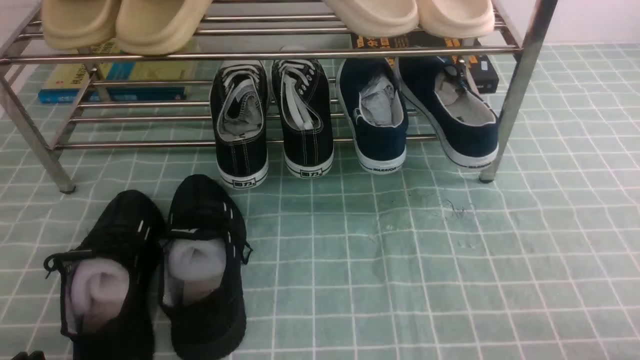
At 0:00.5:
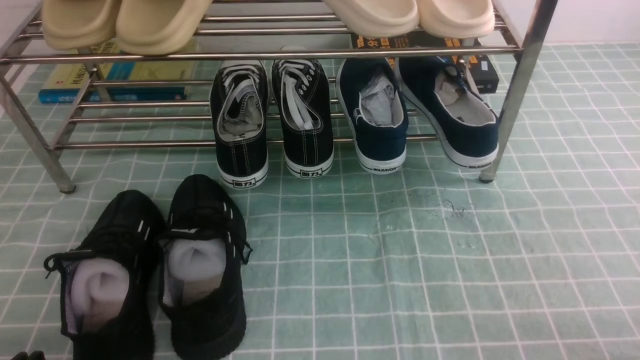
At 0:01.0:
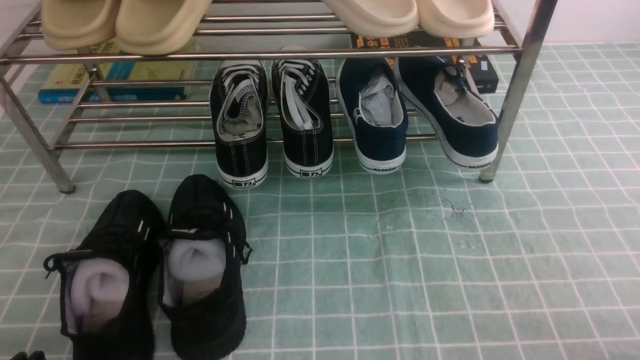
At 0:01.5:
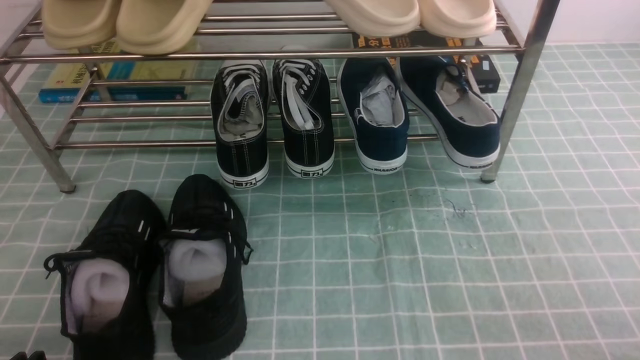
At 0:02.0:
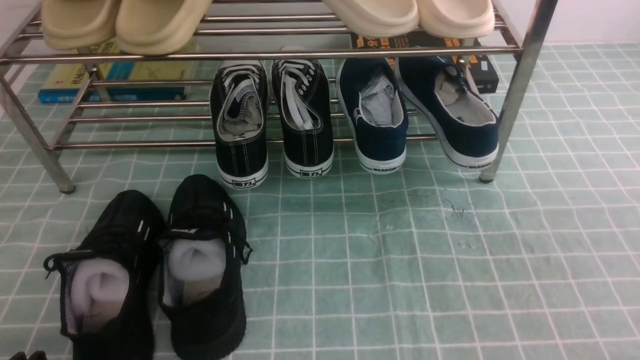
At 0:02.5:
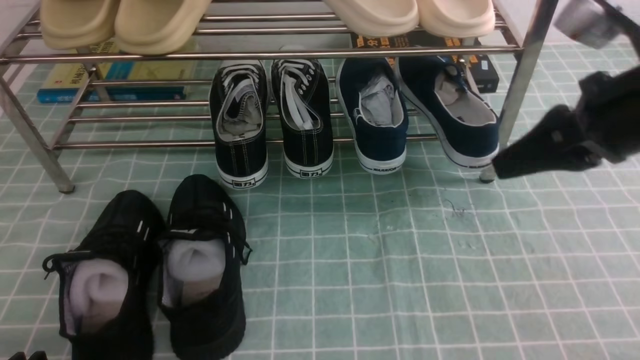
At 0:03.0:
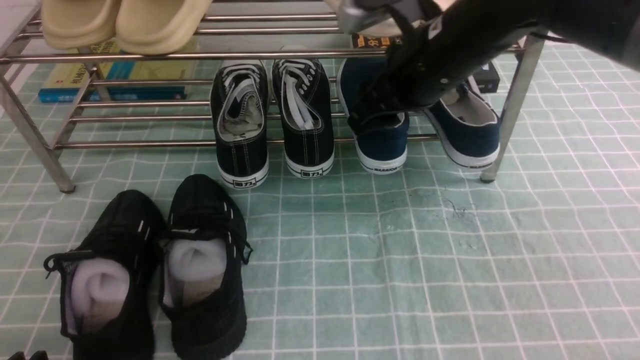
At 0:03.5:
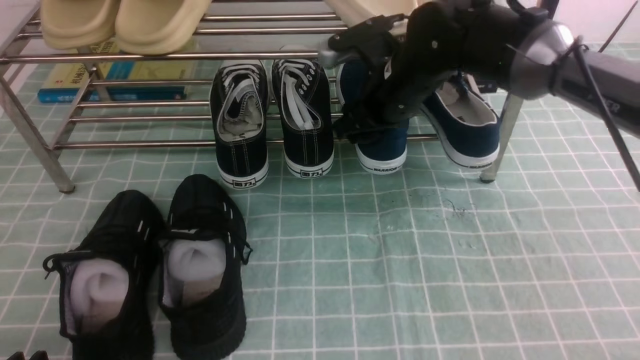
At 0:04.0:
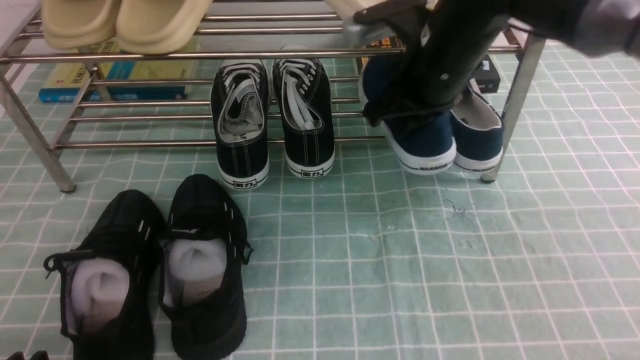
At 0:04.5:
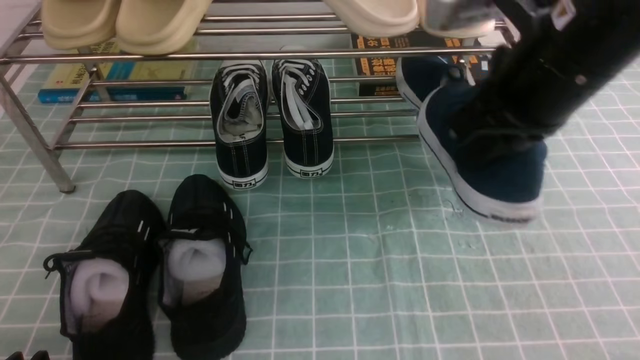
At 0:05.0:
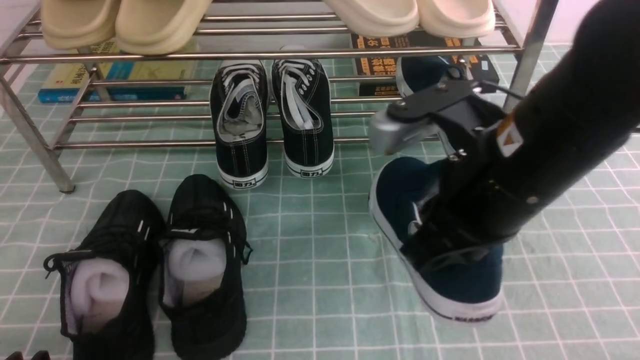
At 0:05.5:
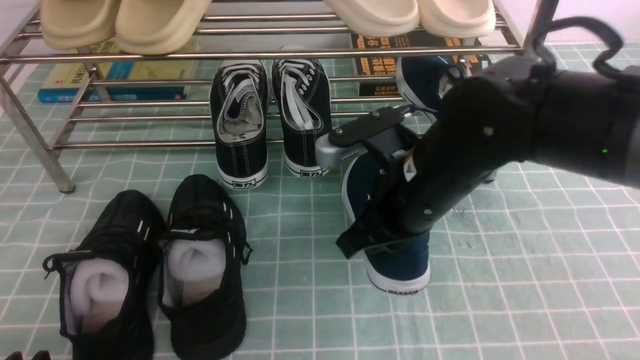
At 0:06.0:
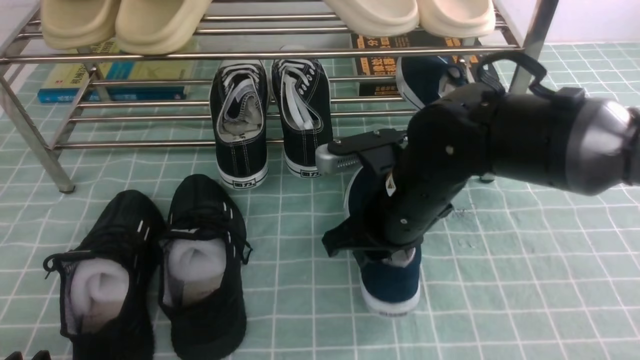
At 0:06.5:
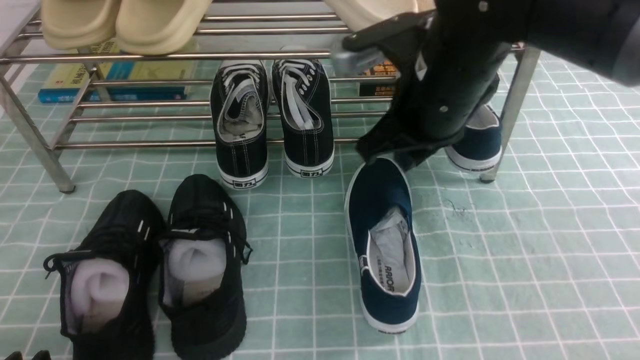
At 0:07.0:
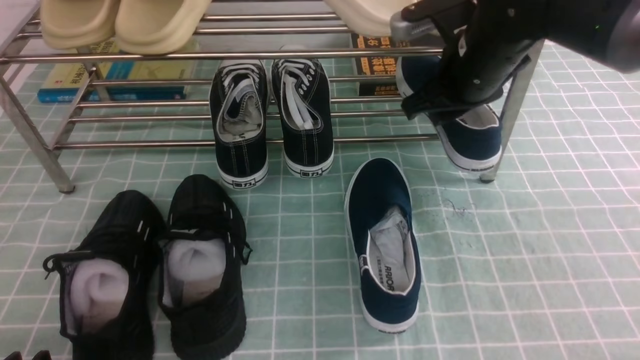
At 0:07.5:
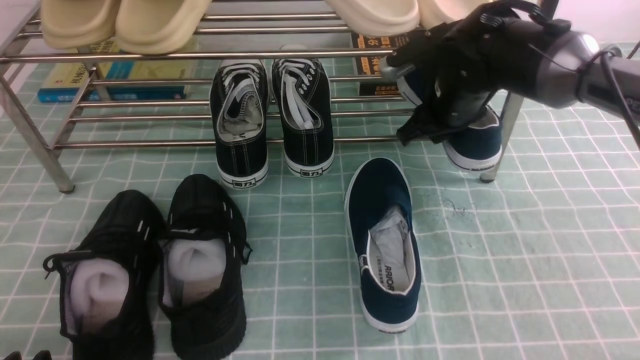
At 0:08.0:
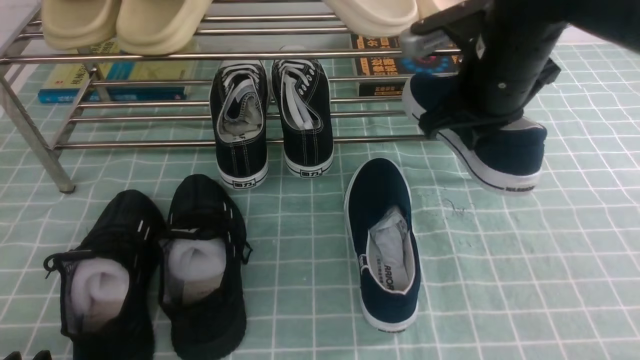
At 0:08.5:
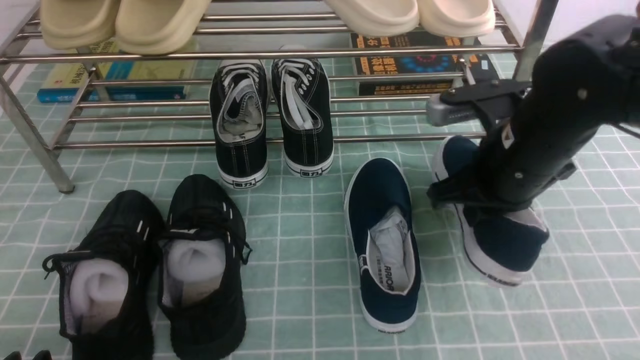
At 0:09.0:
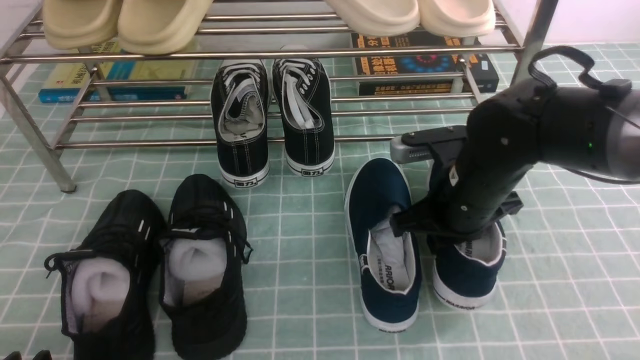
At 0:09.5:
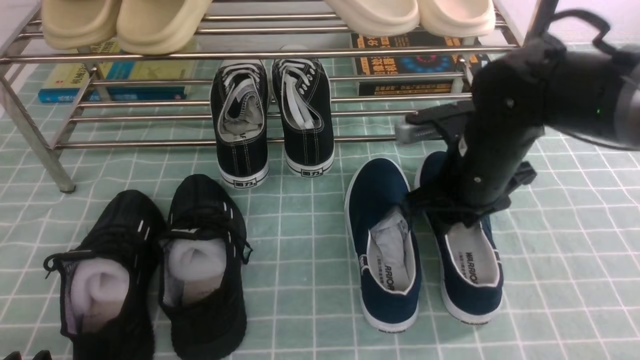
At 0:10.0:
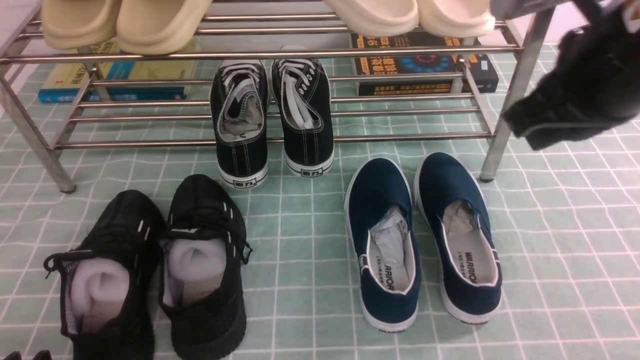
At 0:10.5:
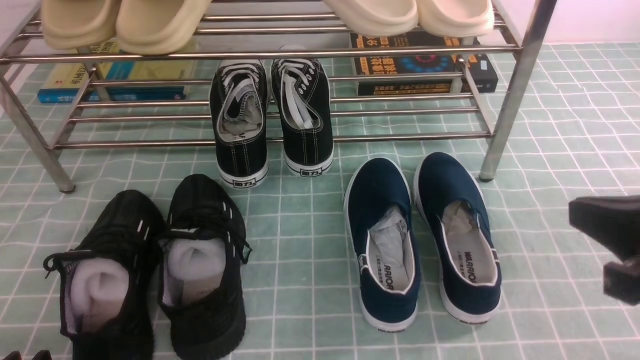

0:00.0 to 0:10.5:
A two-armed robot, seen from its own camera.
Step, 0:00.0 to 0:03.5: use the right arm to clamp a shoe on the right side of the shoe rack.
Step, 0:04.0 to 0:06.0: use the right arm to take out the clamped shoe from the shoe rack and put it down.
Step, 0:06.5 to 0:07.5: use the right arm to clamp a shoe on the right side of the shoe rack.
Step, 0:08.0 to 0:09.5: use the right arm to take out the clamped shoe from the shoe rack and put it down.
0:02.0 to 0:04.0: The right gripper moves forward and to the left, roughly 30 cm, and opens, then closes again.
0:04.0 to 0:06.5: The right gripper moves roughly 15 cm backward and comes back.
0:06.5 to 0:08.5: The right gripper travels to the right and downward by roughly 10 cm, and travels forward and back again, about 10 cm each way.
0:08.5 to 0:10.5: The right gripper shifts some 20 cm backward and to the right, and opens, then closes once more.

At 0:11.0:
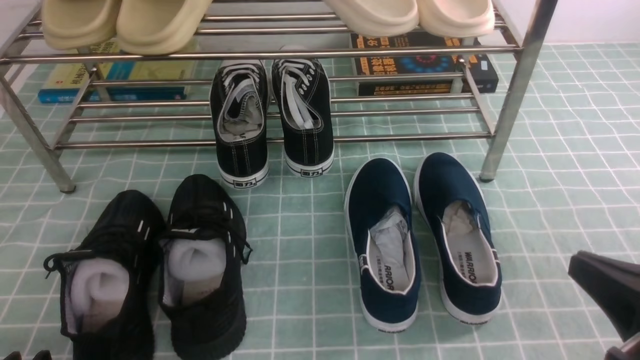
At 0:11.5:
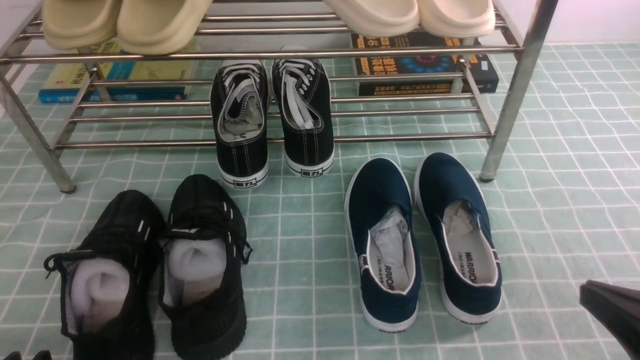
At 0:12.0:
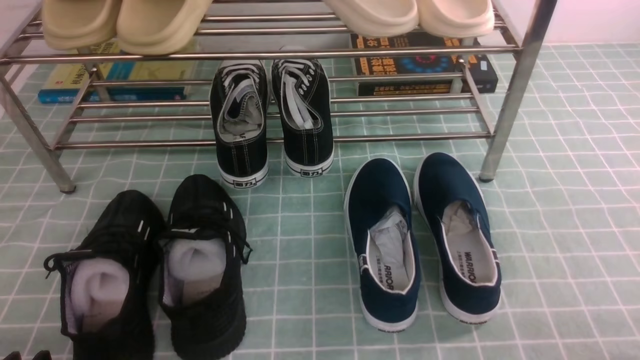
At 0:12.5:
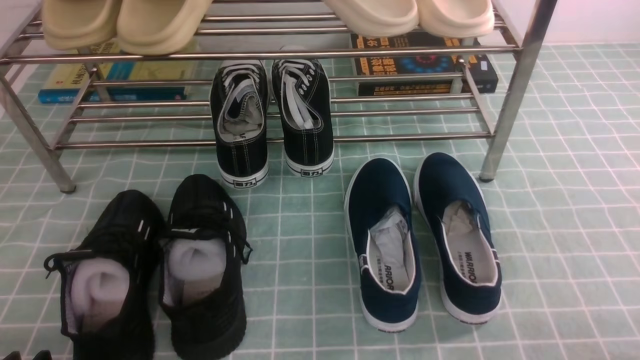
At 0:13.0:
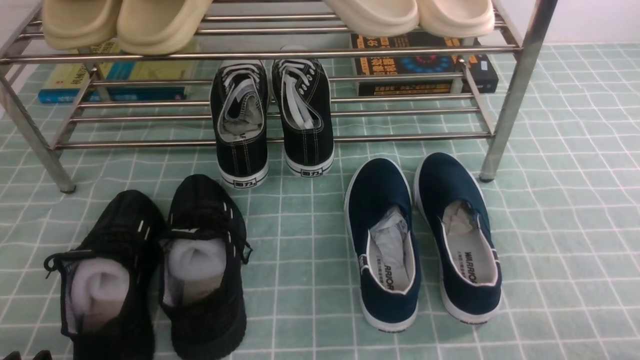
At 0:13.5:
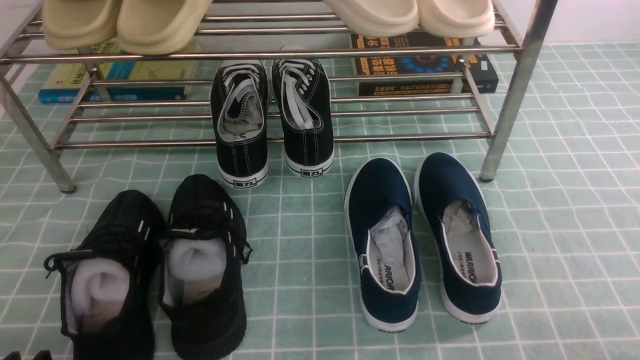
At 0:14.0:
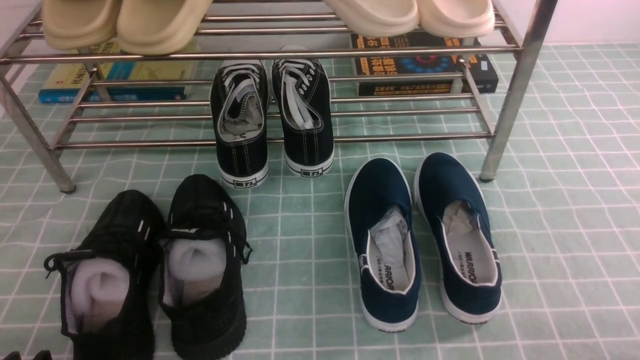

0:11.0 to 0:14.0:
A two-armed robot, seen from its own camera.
0:11.0 to 0:12.5: The right gripper heads downward, to the right and backward, covering approximately 10 cm.
0:12.5 to 0:14.0: Both grippers stay put.

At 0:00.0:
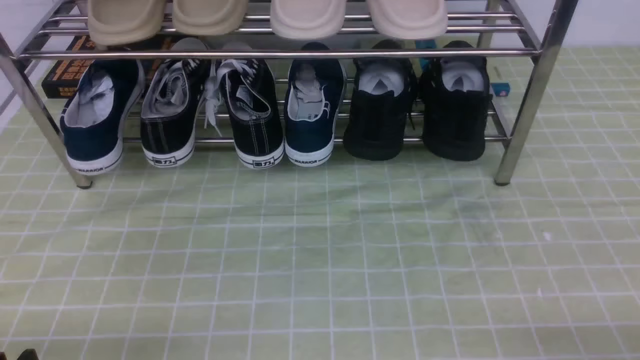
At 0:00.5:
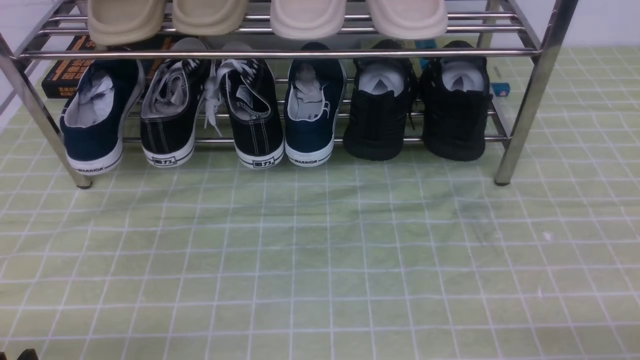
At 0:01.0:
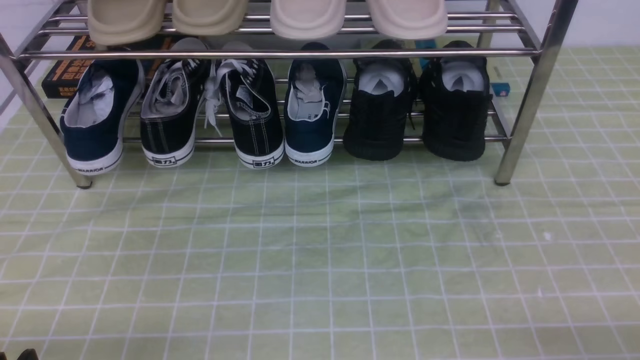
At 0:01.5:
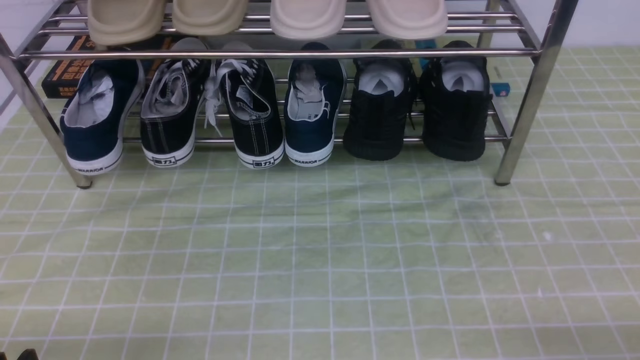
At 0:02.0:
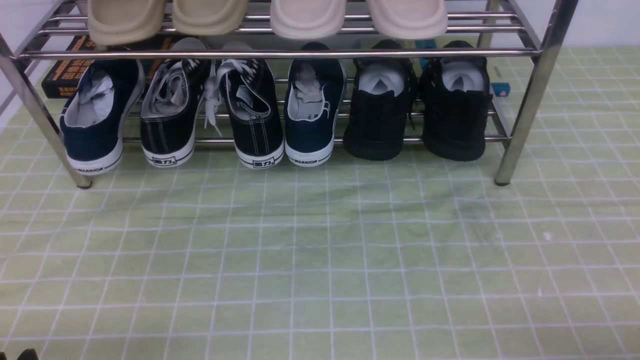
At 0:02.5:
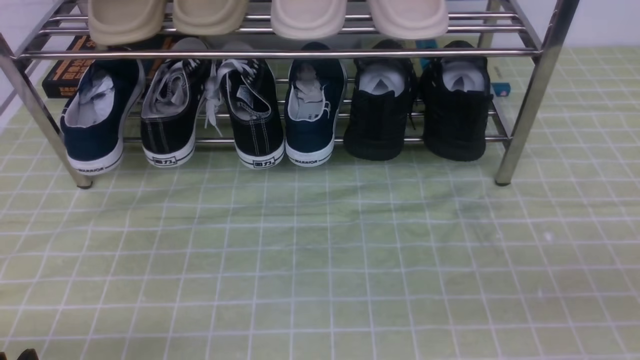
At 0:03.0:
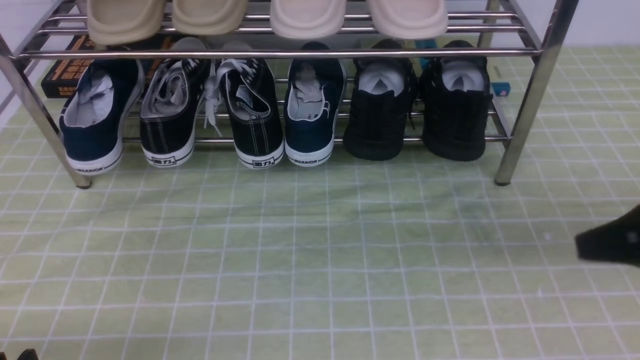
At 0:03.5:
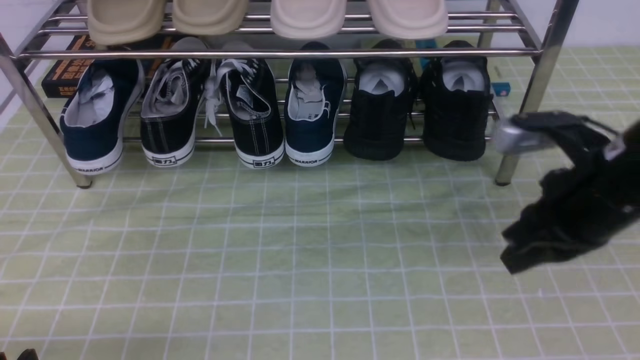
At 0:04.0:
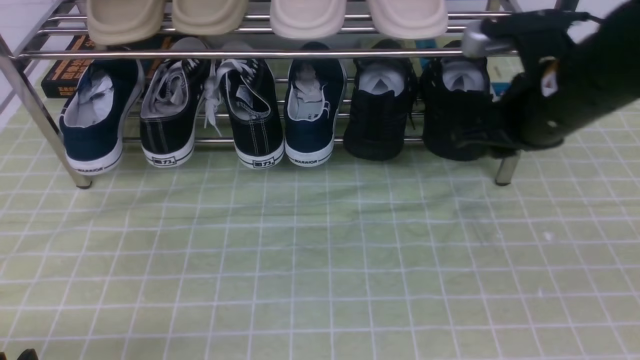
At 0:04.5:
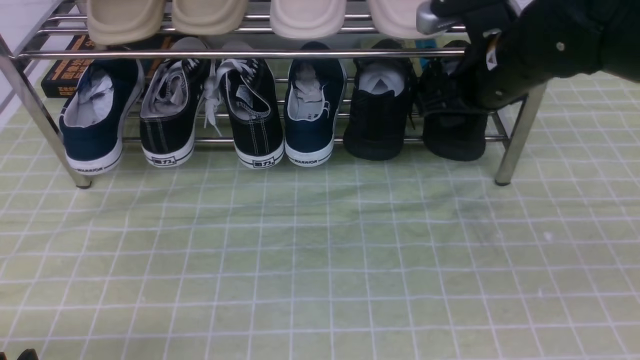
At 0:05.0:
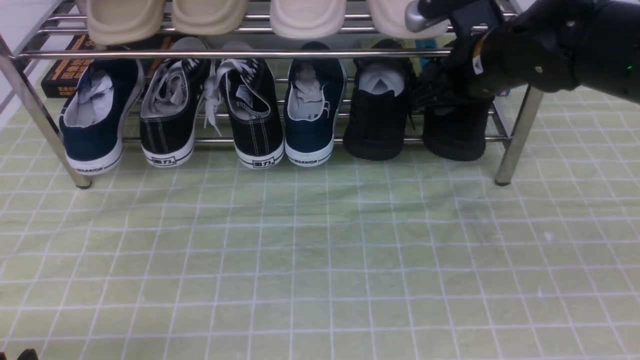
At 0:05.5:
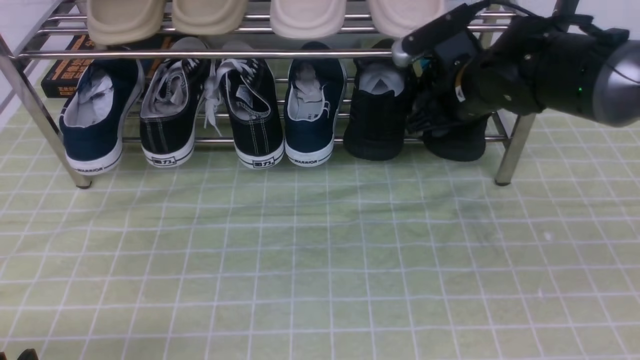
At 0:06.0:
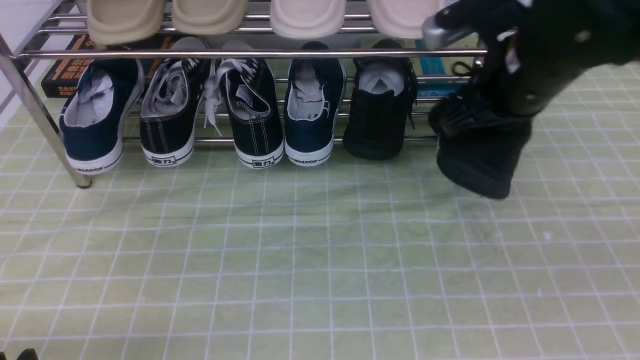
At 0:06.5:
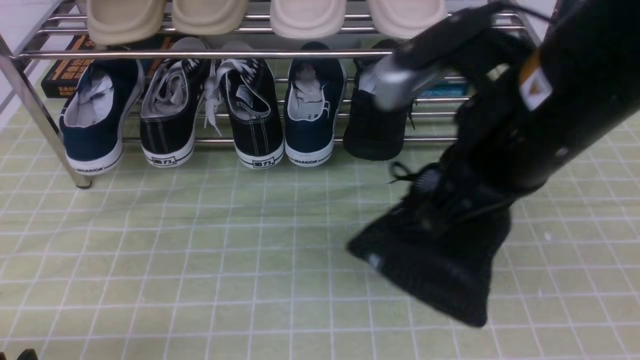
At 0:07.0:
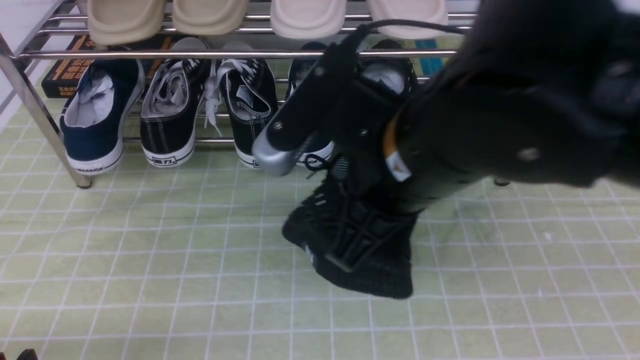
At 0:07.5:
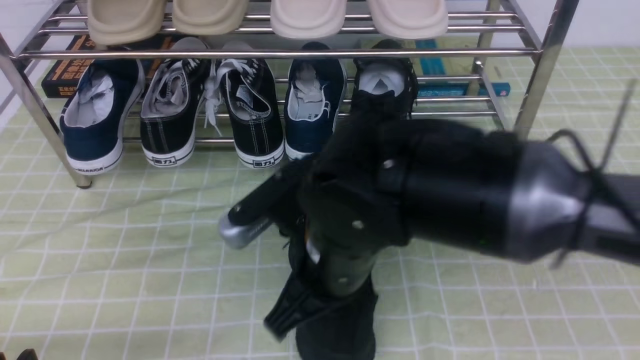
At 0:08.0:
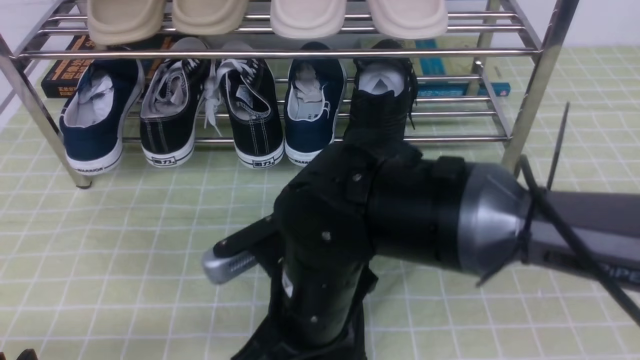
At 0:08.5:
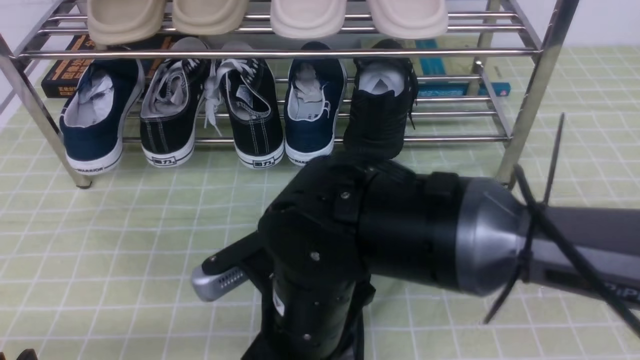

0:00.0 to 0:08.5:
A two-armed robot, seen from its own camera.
Step, 0:00.0 to 0:05.5: use the right arm to clamp a shoe on the right side of the shoe rack.
0:02.0 to 0:04.0: The right gripper goes roughly 30 cm forward, upward and to the left, and closes, then reopens.
0:04.0 to 0:06.5: The right gripper goes some 15 cm backward, to the left and upward, and closes.
0:06.5 to 0:08.5: The right gripper goes approximately 20 cm to the left and downward, and opens its fingers.
